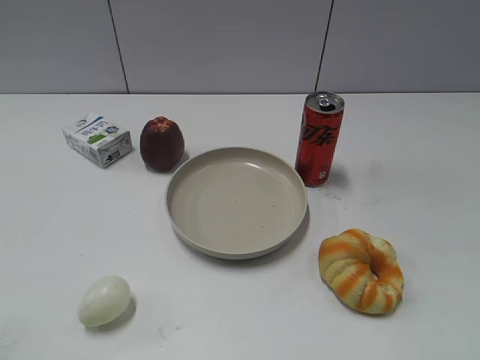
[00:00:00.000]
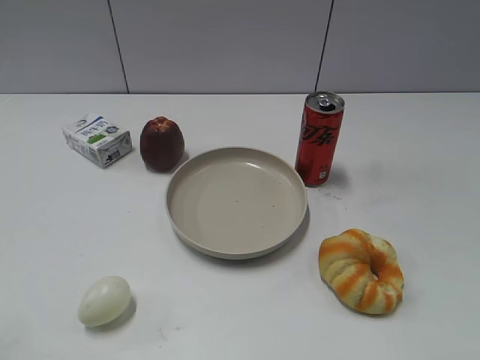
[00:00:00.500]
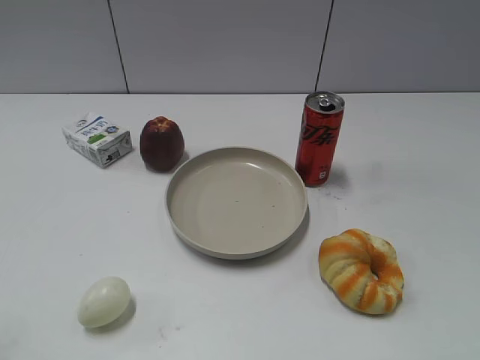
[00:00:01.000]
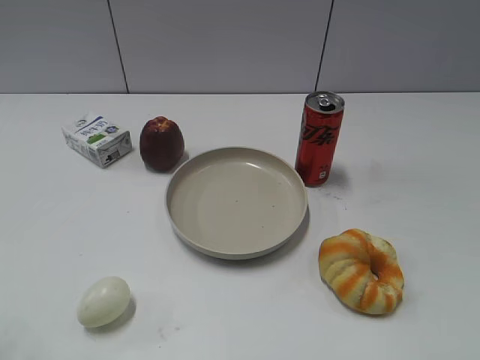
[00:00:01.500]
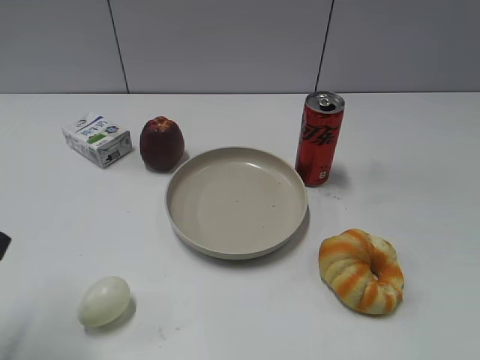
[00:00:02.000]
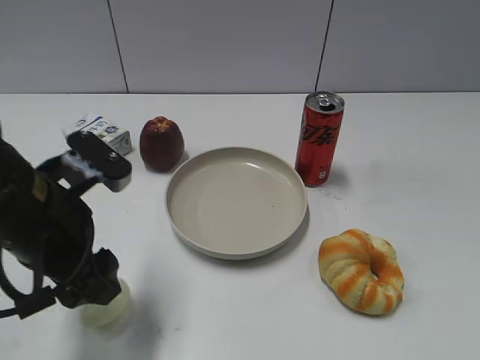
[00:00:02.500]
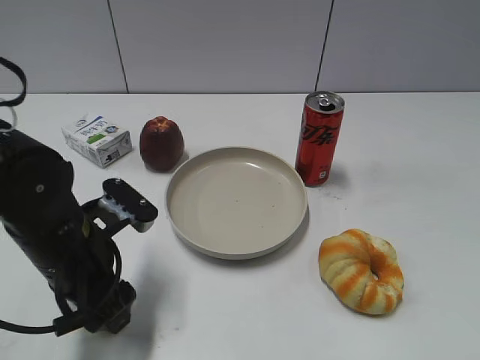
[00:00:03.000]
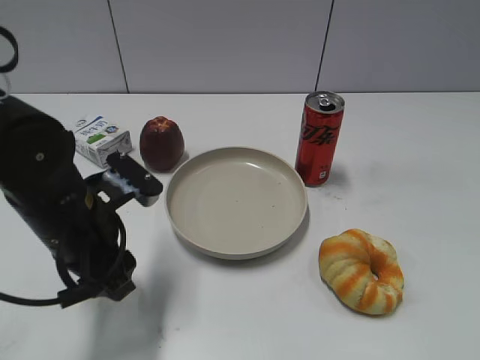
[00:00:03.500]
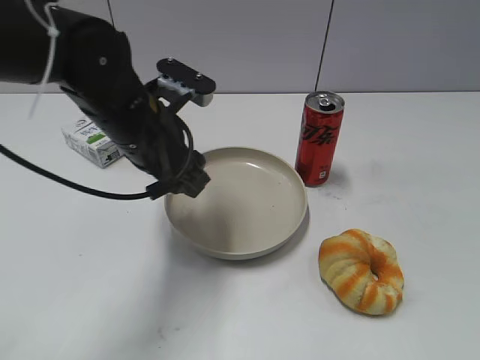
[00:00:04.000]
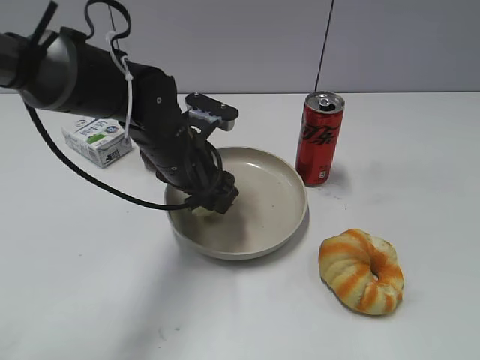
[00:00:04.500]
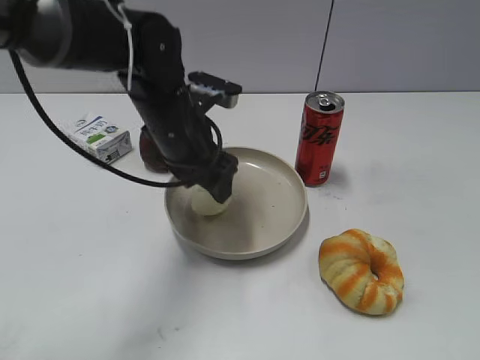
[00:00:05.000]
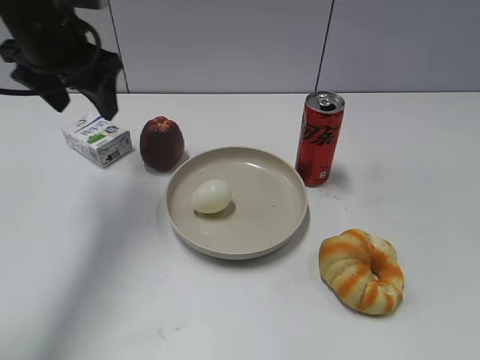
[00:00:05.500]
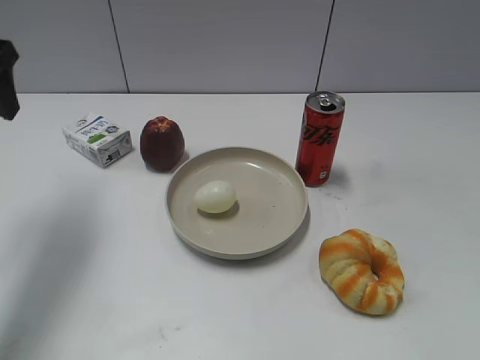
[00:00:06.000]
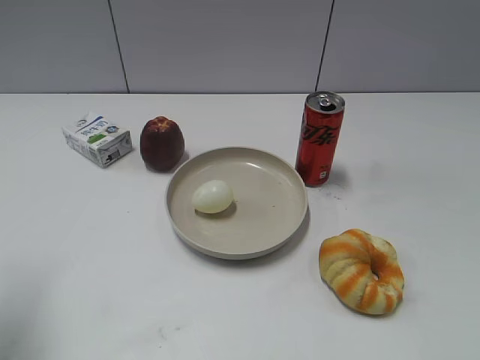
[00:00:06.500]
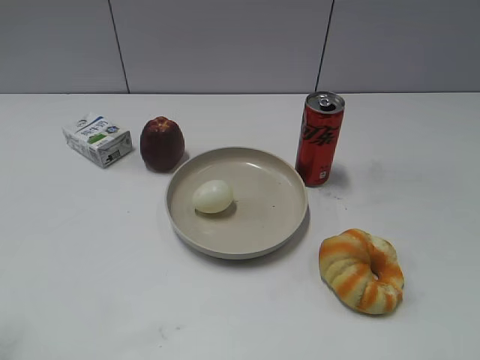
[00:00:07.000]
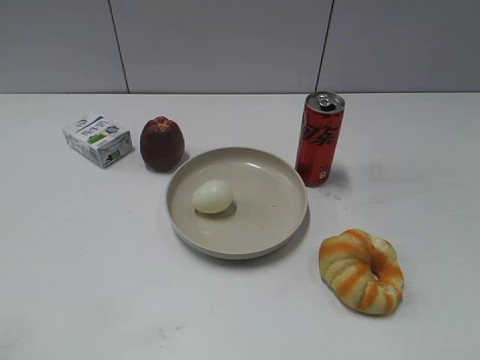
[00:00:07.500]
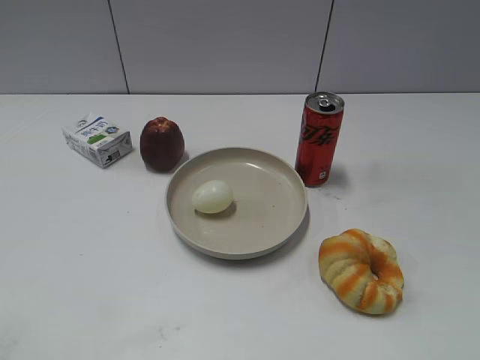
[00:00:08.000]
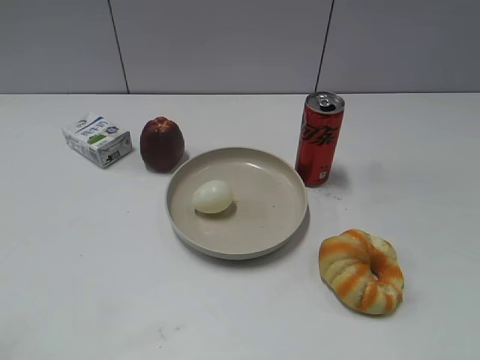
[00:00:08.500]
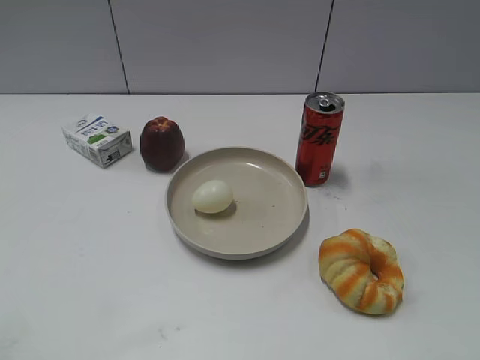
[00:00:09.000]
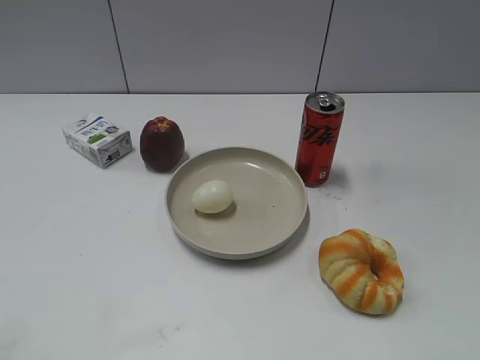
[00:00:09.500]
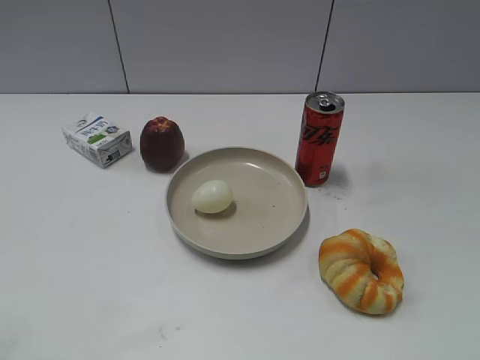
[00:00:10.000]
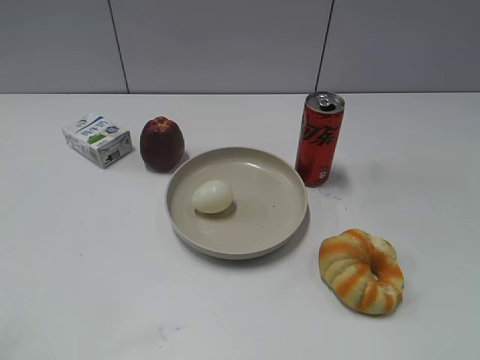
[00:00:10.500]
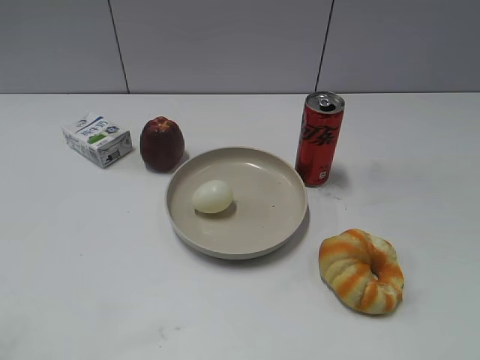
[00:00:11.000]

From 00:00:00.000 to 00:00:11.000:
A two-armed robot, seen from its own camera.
Step, from 00:00:01.500 to 00:00:03.000: Grasp the egg with left gripper.
Step, from 00:00:03.500 to 00:00:05.000: Place the egg on the plate with left gripper.
From 00:00:02.000 to 00:00:03.500: The left gripper heads downward, to the right and forward, covering about 20 cm, and closes its fingers.
From 00:00:03.500 to 00:00:05.500: The left gripper is displaced forward and upward by roughly 20 cm, and opens.
From 00:00:05.500 to 00:00:07.500: The left gripper is displaced backward and to the left by about 35 cm.
From 00:00:09.000 to 00:00:11.000: Both grippers stay put.

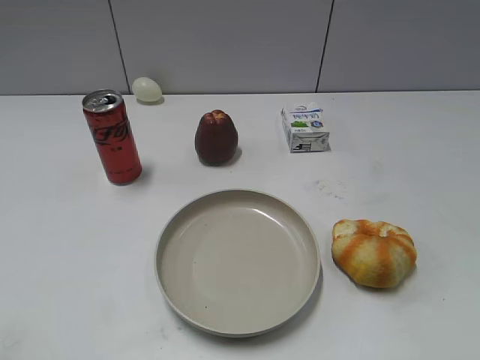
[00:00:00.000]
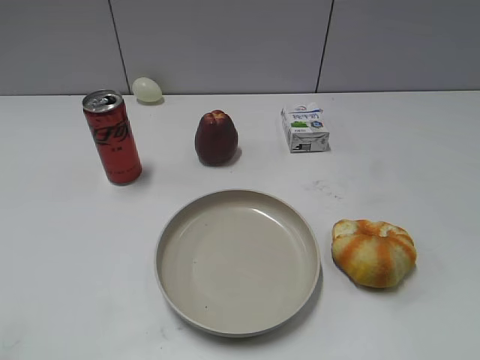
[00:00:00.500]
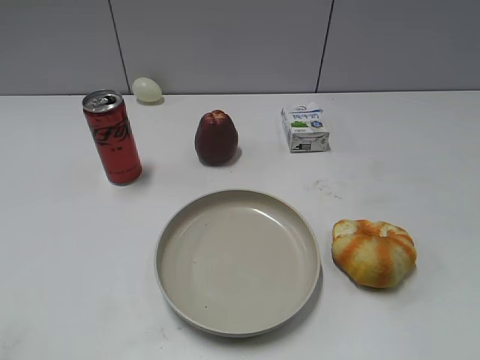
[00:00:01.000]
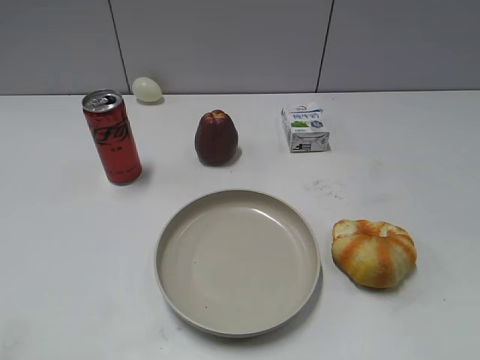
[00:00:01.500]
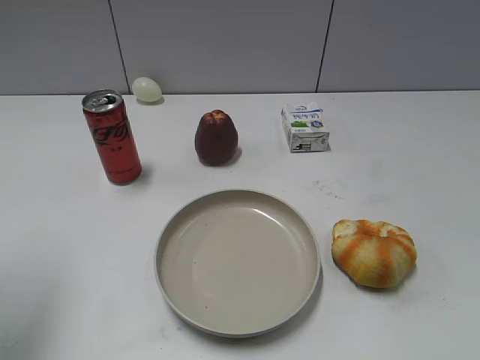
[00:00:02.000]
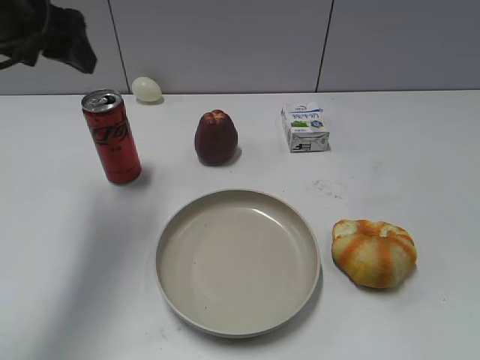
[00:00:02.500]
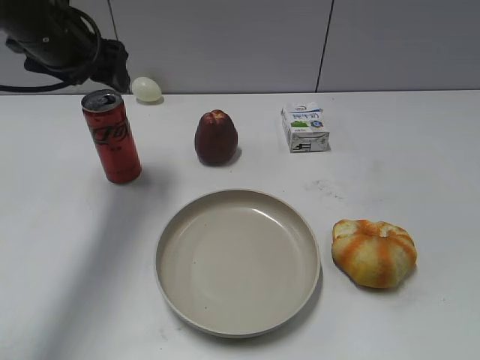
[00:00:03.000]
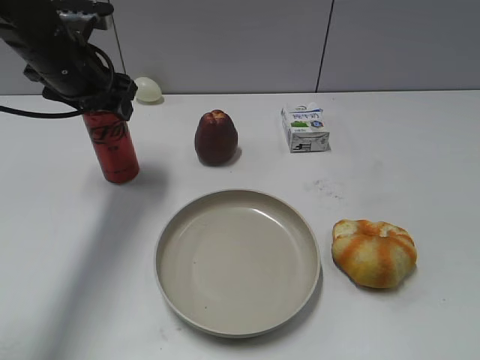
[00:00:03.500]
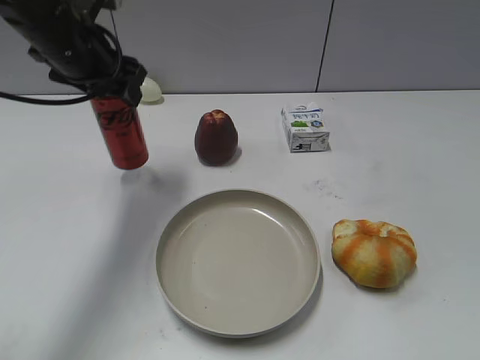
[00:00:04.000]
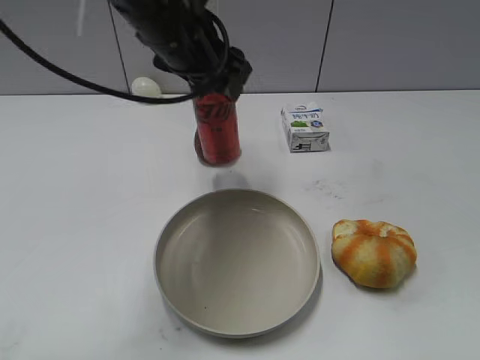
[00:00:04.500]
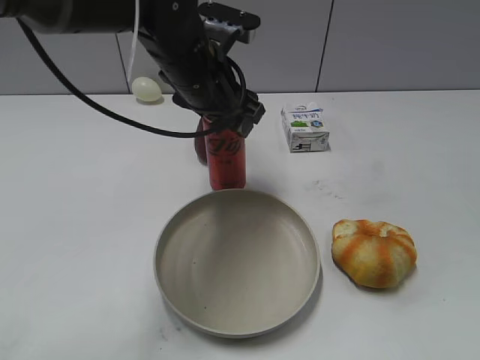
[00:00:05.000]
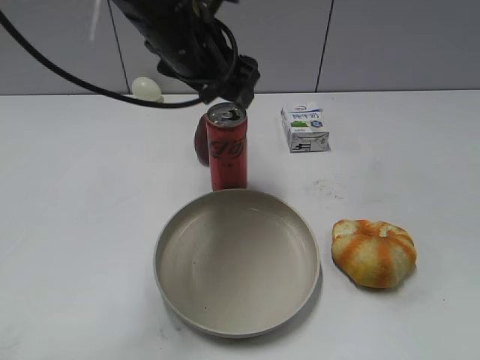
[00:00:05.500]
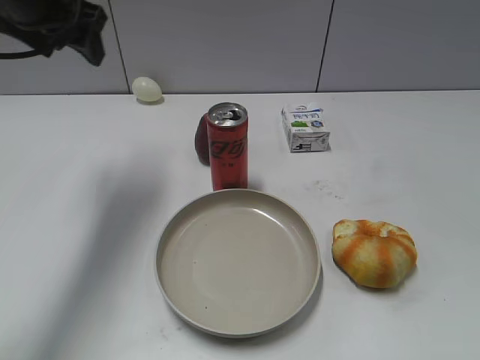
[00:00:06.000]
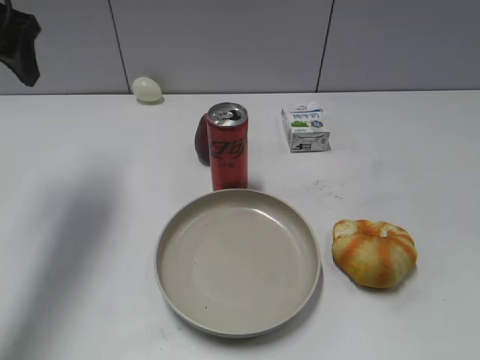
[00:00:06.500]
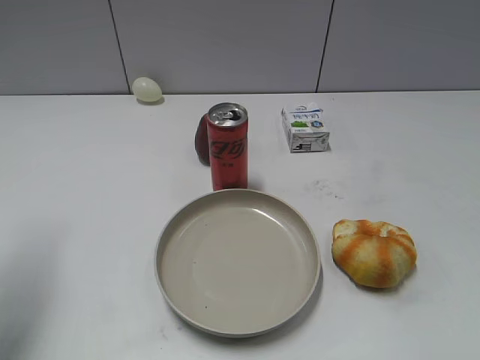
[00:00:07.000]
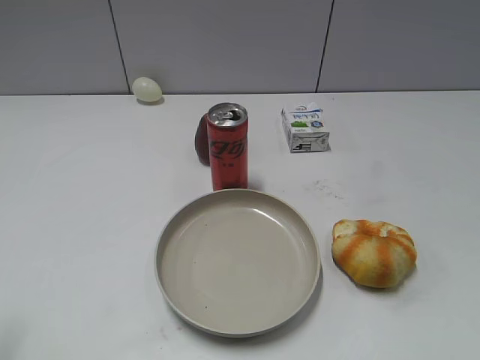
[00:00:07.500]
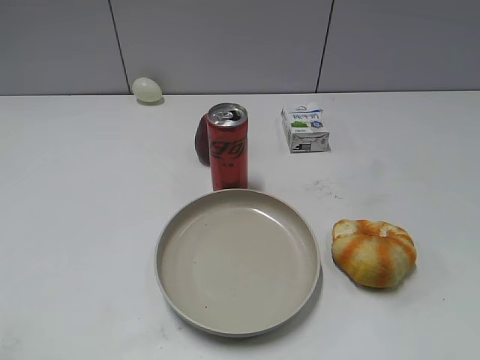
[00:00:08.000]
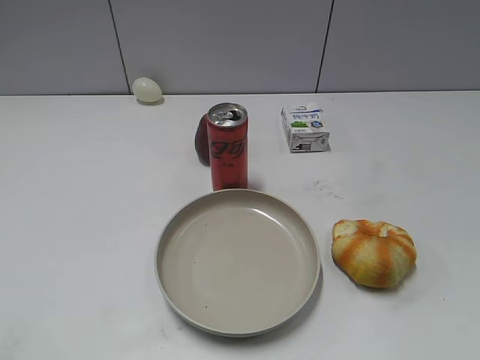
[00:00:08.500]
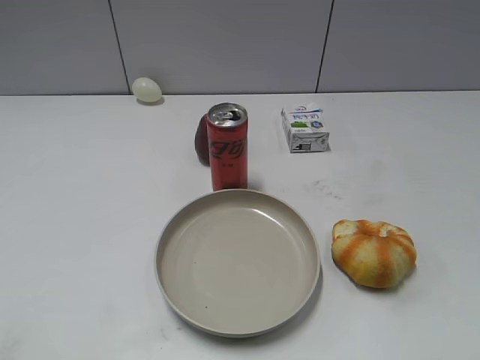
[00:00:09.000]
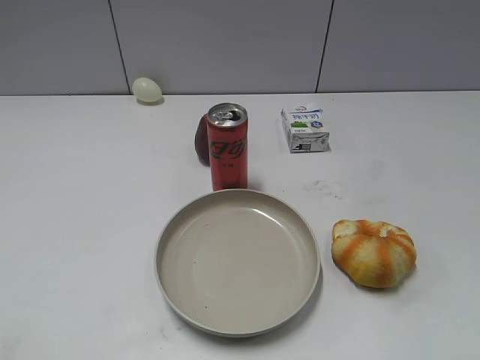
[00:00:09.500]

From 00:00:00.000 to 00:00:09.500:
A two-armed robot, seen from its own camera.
Step, from 00:00:01.500 to 00:00:03.500: Grasp the cola with left gripper.
Step, from 00:00:04.000 to 00:00:05.500: Place the cola on the table with left gripper.
From 00:00:02.000 to 00:00:04.000: The left gripper travels forward and to the right by approximately 20 cm, and opens, then closes again.
From 00:00:04.000 to 00:00:05.500: The left gripper heads to the right, covering about 10 cm, and opens up.
From 00:00:05.500 to 00:00:07.500: The left gripper is displaced to the left and backward by approximately 35 cm, and closes.
